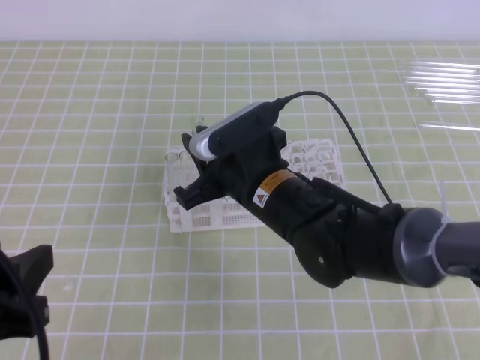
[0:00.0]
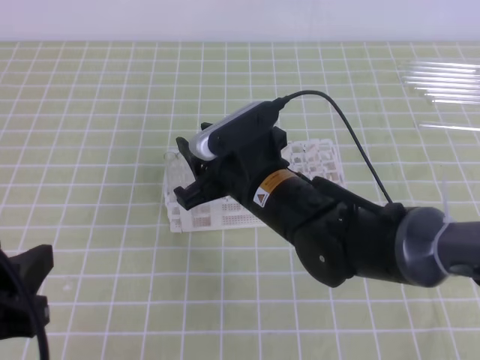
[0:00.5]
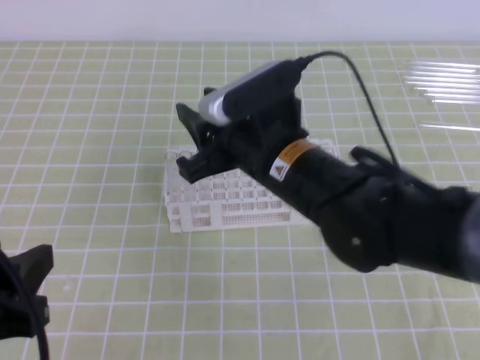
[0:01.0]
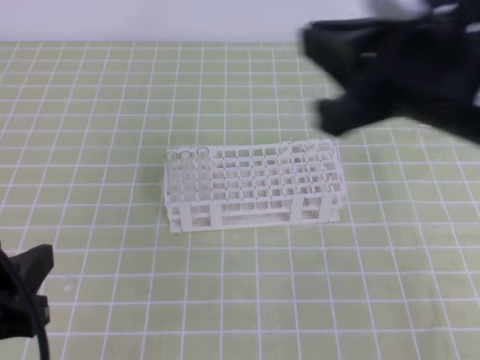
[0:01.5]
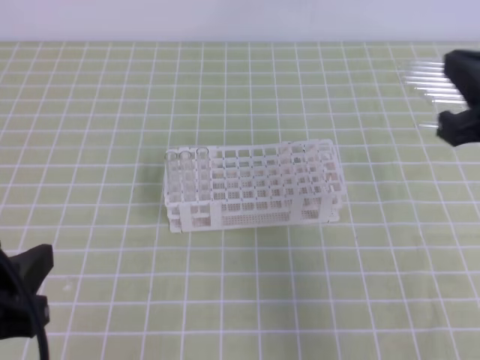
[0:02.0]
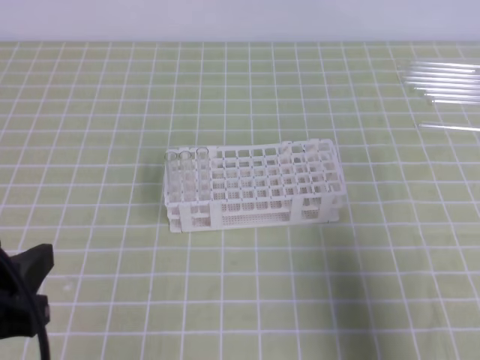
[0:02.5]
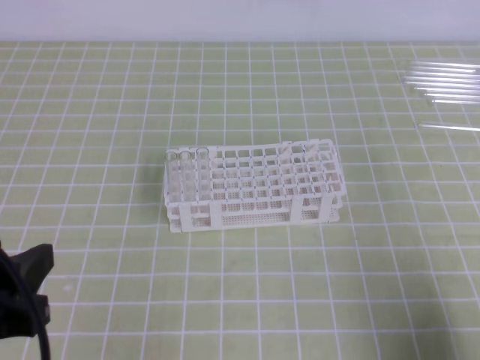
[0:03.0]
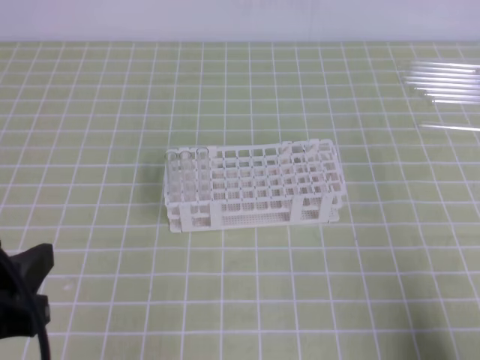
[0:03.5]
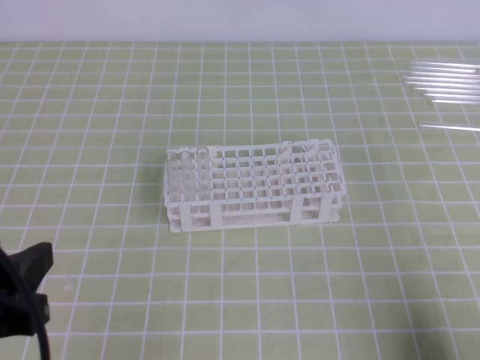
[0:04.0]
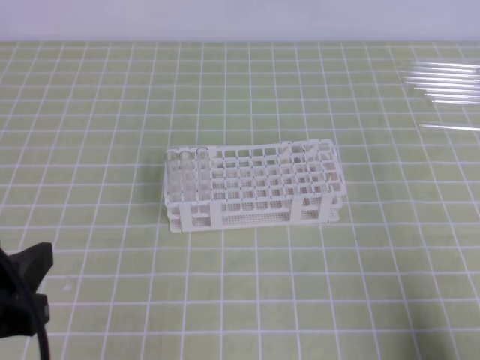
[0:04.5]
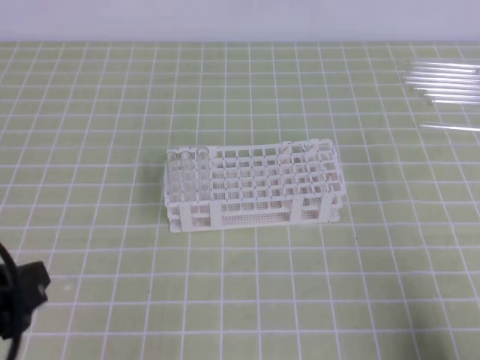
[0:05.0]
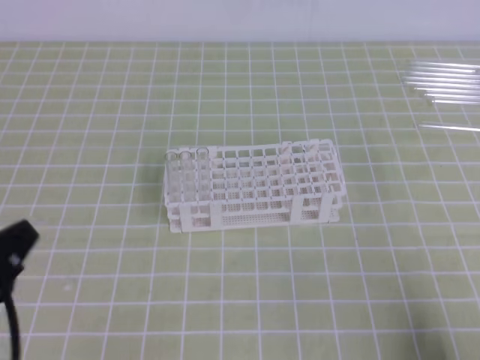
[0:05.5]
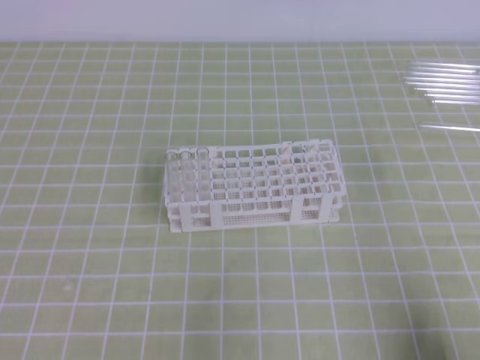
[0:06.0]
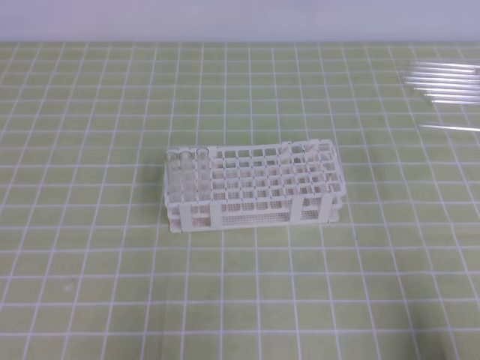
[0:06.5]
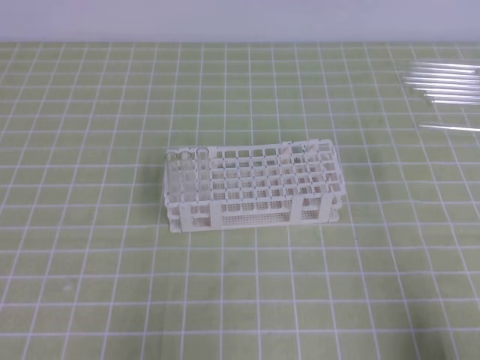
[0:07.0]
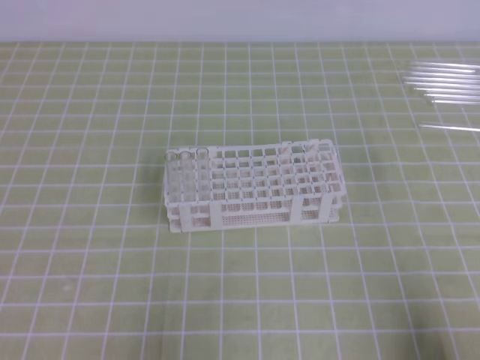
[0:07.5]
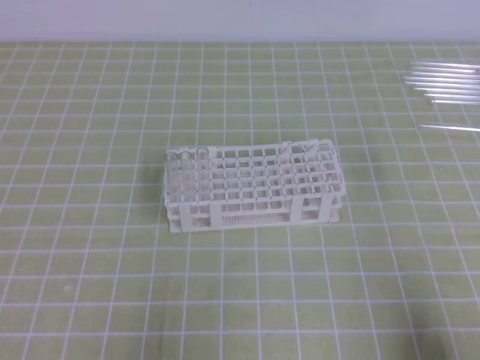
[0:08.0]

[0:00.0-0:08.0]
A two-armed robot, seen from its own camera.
0:00.0 to 0:02.0: The right gripper heads to the right and upward, covering some 25 cm.
0:02.0 to 0:04.0: The right gripper moves downward, backward and to the right, approximately 25 cm.
0:04.0 to 0:06.0: The left gripper moves downward and to the left, about 10 cm, and closes.
